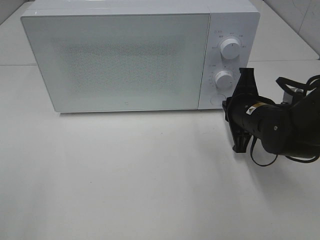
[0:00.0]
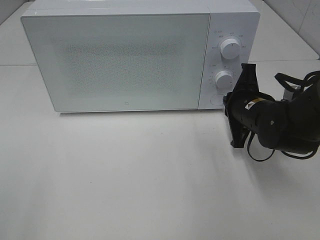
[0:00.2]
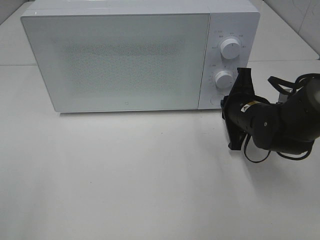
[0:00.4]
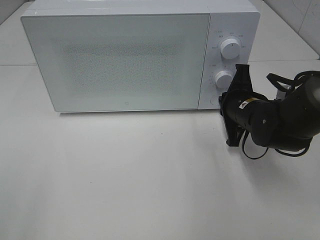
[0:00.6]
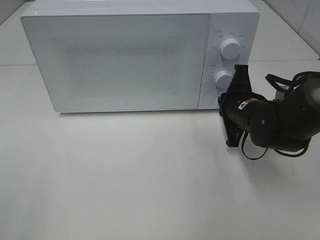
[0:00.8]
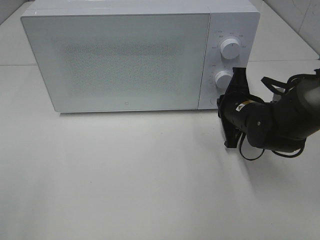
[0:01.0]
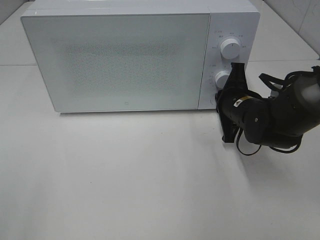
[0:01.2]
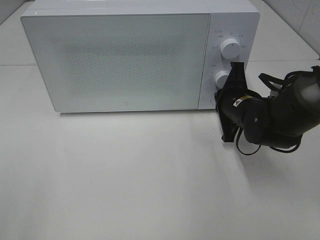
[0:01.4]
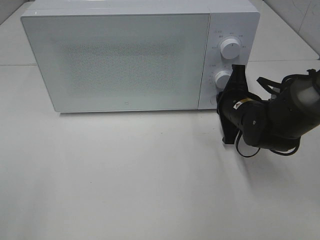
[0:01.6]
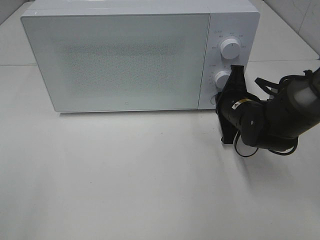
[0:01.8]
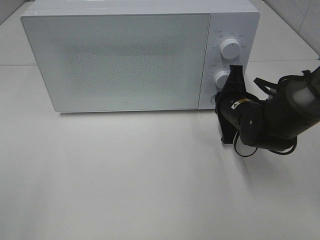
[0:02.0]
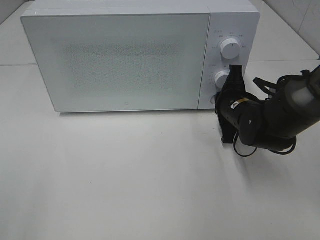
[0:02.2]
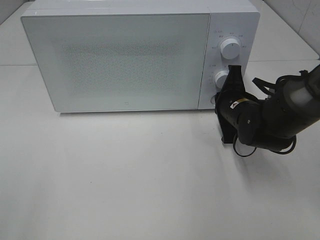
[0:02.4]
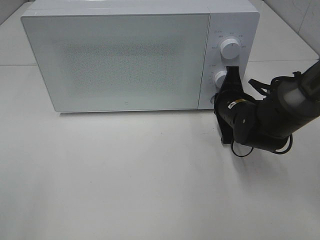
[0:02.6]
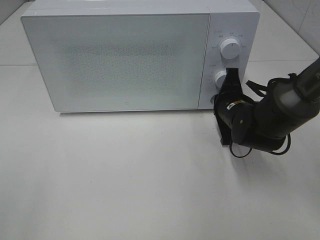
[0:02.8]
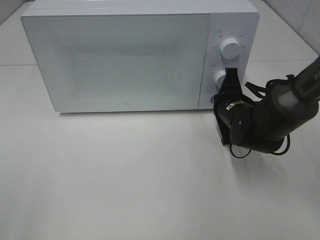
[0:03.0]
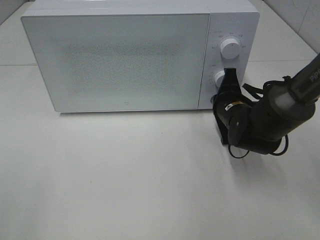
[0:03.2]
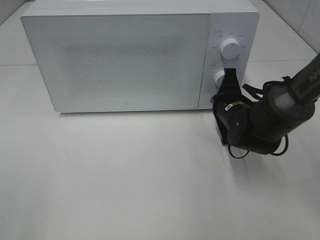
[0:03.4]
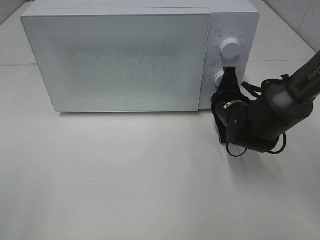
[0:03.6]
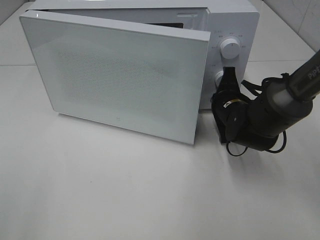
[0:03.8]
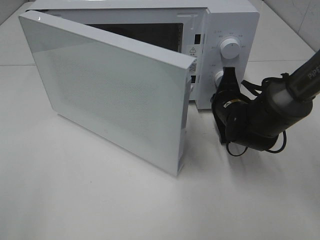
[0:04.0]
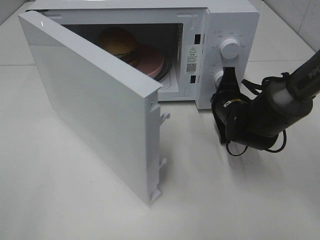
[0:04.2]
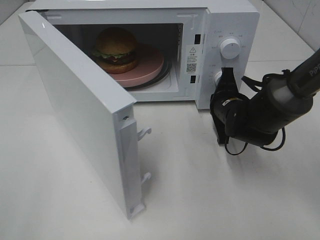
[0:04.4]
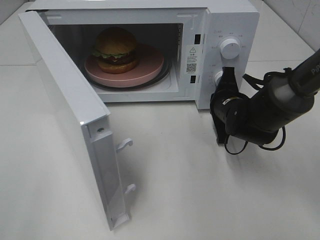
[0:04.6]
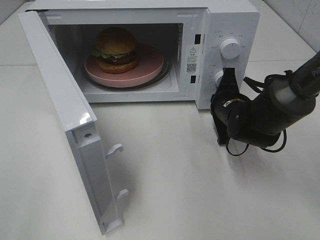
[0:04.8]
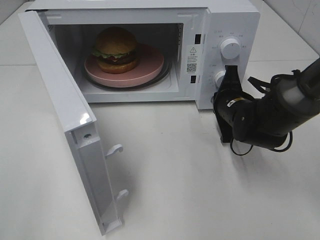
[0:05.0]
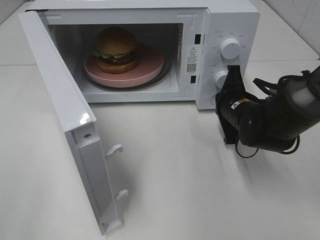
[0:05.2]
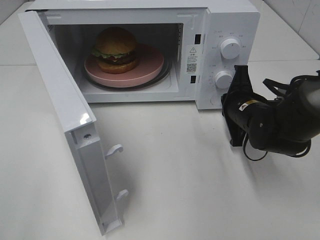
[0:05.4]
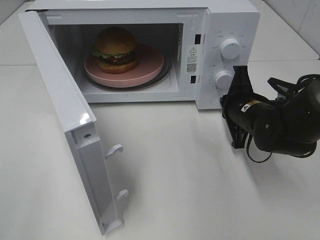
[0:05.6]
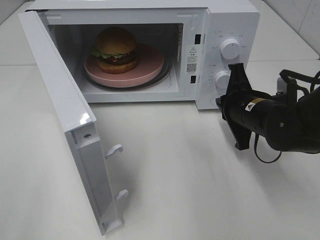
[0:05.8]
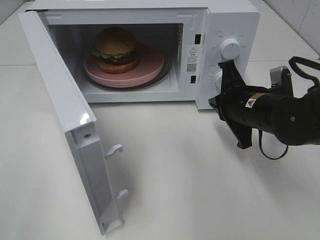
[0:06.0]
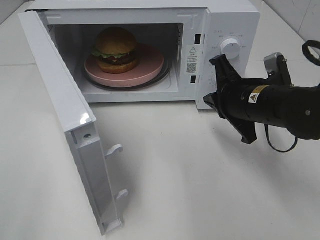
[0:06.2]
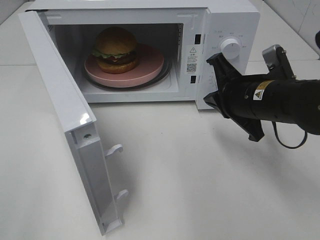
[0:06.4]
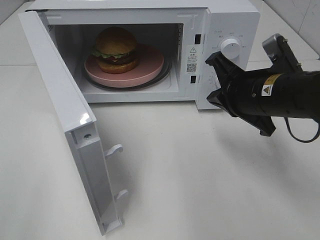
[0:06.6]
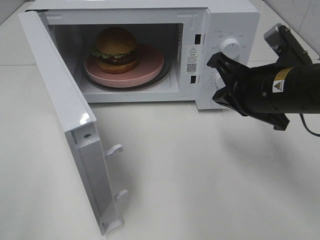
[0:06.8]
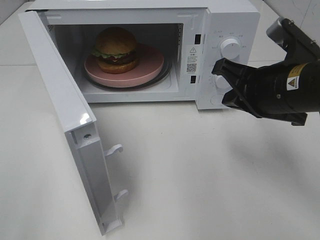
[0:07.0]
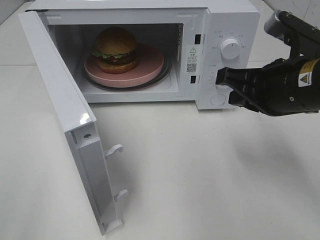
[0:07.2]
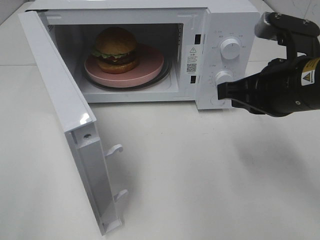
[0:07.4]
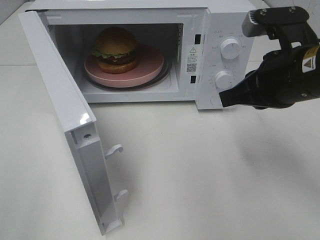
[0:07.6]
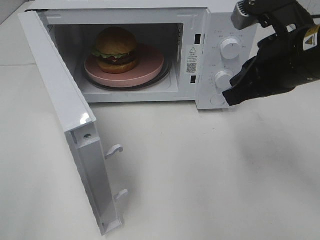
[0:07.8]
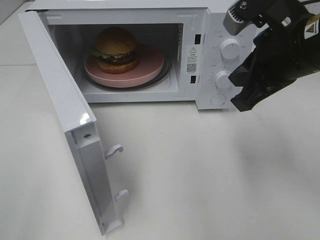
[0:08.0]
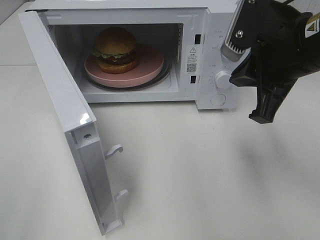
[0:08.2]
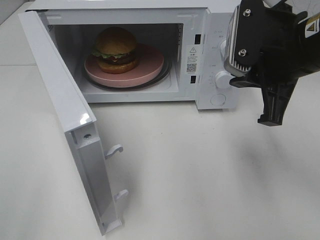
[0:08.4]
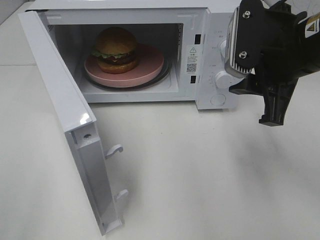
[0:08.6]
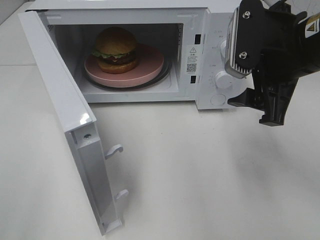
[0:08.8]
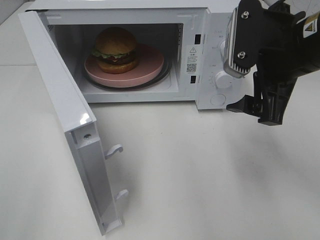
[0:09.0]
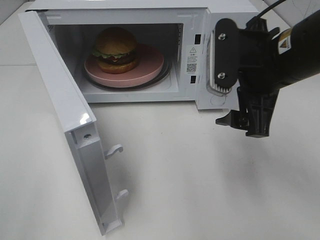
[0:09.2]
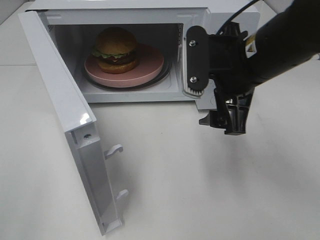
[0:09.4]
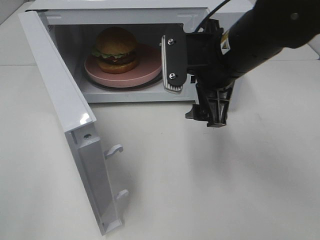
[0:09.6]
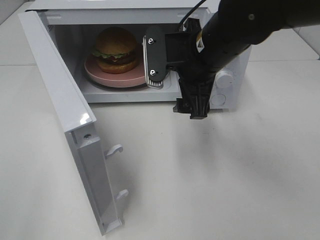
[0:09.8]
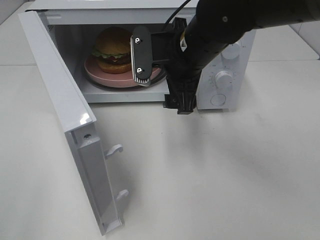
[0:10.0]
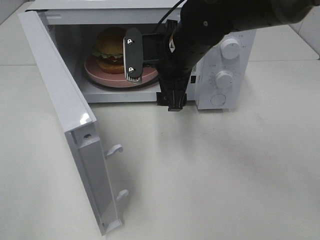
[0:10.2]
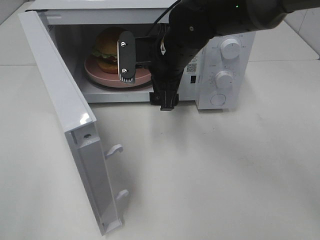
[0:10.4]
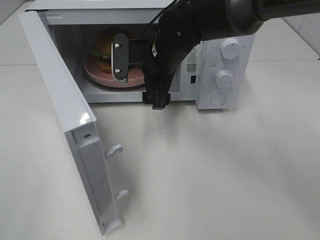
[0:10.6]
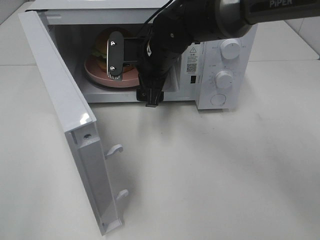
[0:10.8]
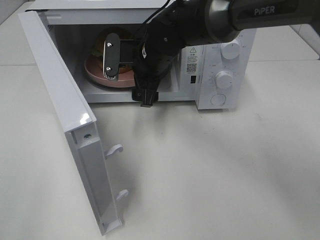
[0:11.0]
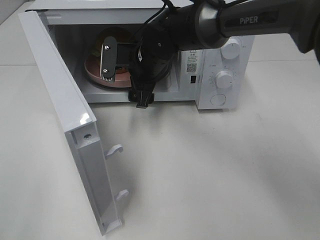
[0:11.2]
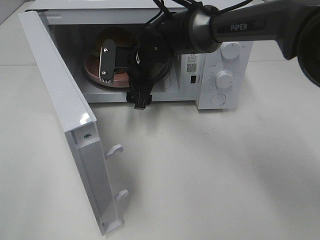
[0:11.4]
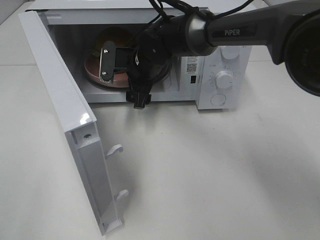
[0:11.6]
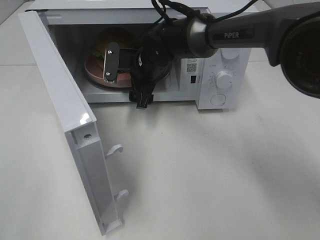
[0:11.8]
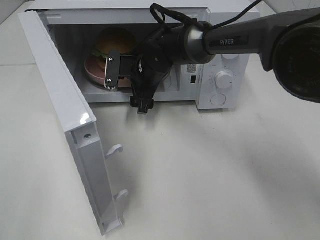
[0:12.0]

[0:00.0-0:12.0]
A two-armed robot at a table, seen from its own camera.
Task of the whole recording: Heat the burger.
Step, 0:00.0 to 0:05.4: Right hand: press the switch.
0:00.0 to 0:03.0: The grippers move only a little.
0:04.4 to 0:06.0: The right gripper heads backward and upward, covering approximately 10 cm.
0:06.0 to 0:07.6: The right gripper heads upward and backward, covering approximately 10 cm.
0:07.6 to 0:09.0: The right gripper opens its fingers.
0:09.0 to 0:10.4: The right gripper moves to the left, forward and downward, some 20 cm.
0:10.4 to 0:12.0: The right gripper travels downward and forward by approximately 10 cm.

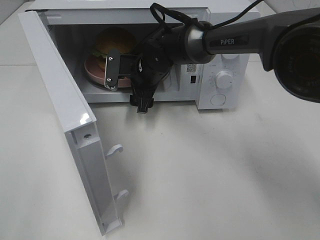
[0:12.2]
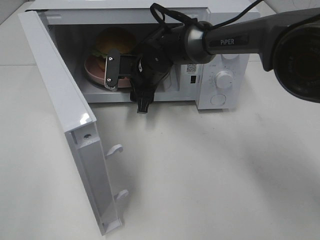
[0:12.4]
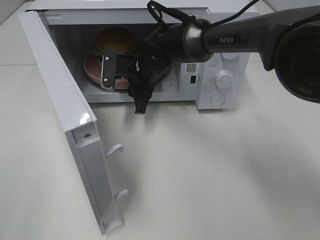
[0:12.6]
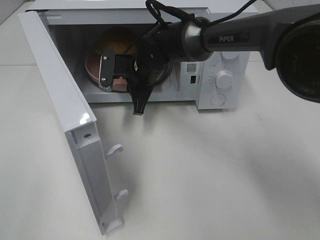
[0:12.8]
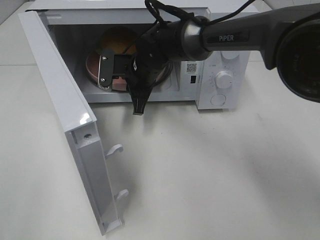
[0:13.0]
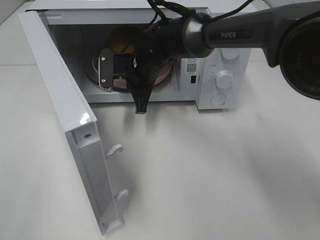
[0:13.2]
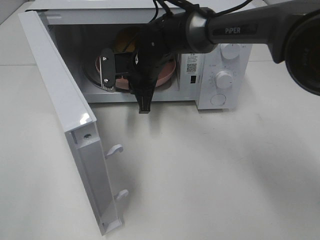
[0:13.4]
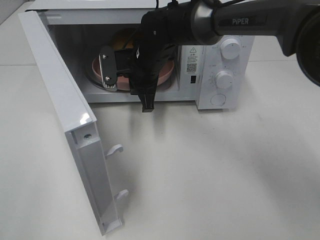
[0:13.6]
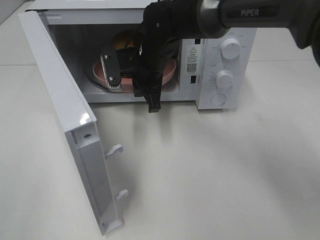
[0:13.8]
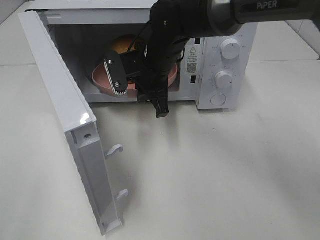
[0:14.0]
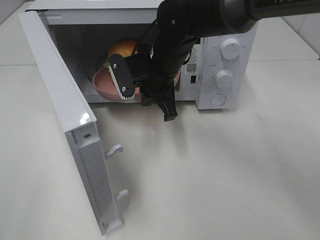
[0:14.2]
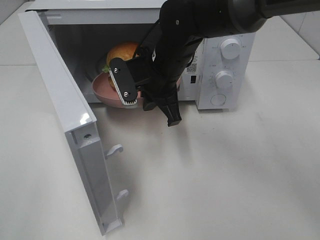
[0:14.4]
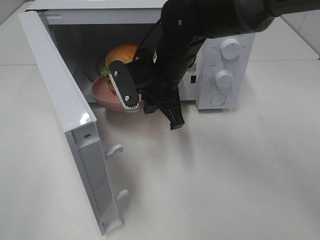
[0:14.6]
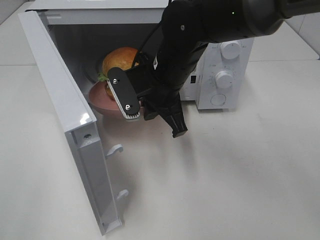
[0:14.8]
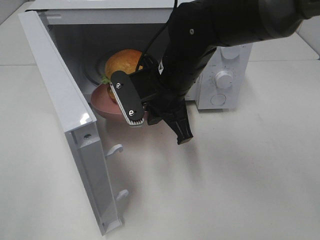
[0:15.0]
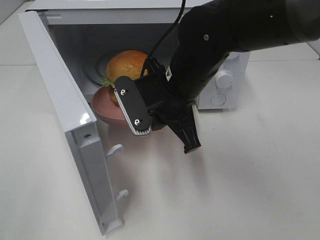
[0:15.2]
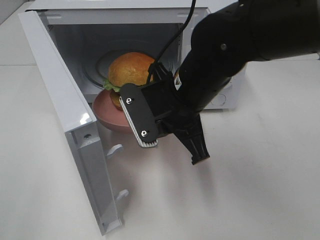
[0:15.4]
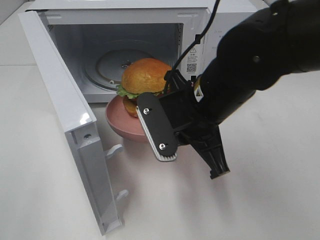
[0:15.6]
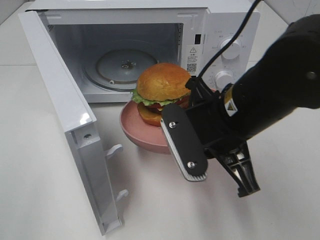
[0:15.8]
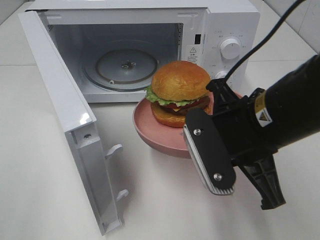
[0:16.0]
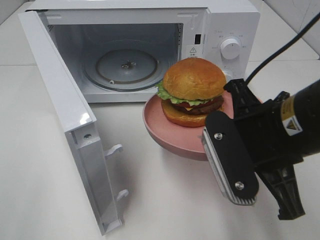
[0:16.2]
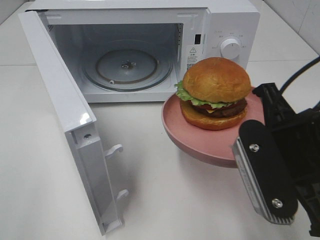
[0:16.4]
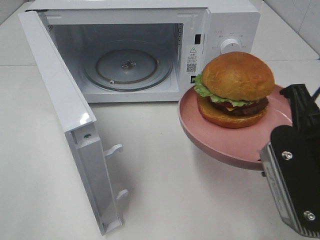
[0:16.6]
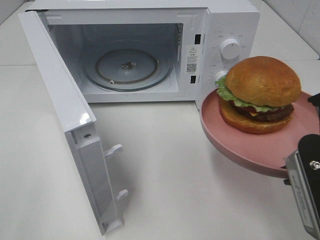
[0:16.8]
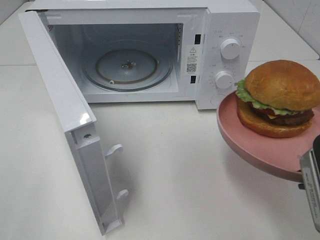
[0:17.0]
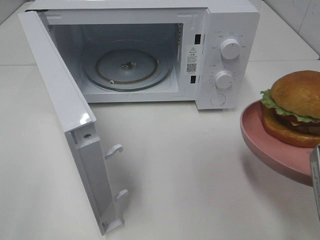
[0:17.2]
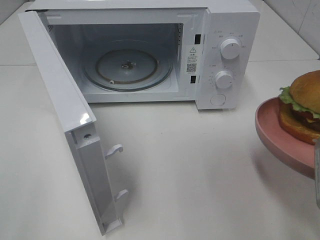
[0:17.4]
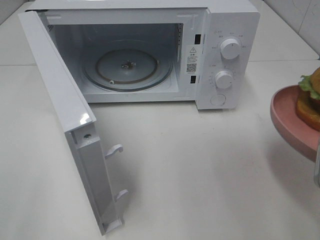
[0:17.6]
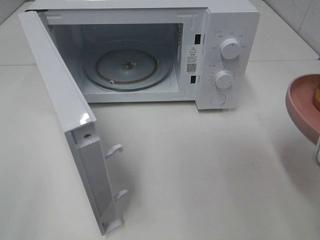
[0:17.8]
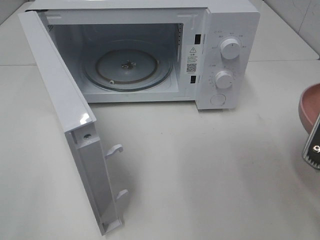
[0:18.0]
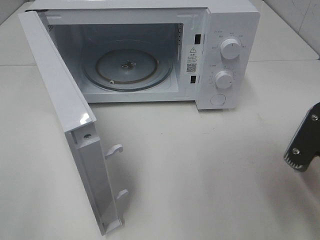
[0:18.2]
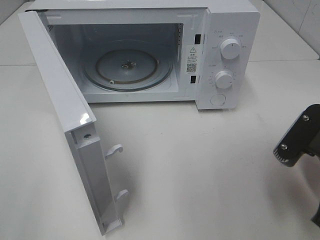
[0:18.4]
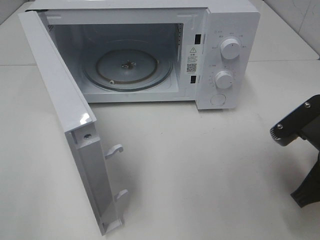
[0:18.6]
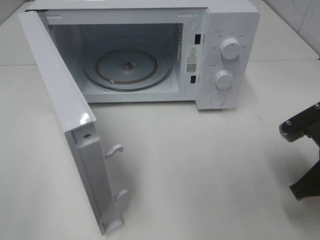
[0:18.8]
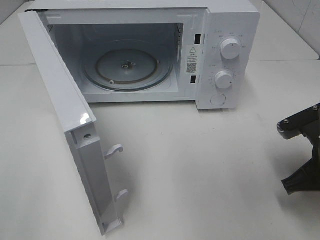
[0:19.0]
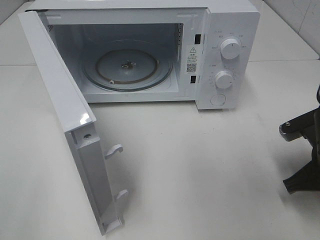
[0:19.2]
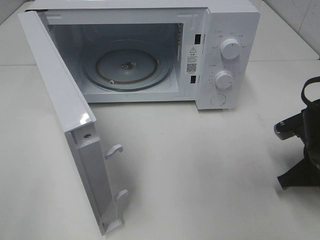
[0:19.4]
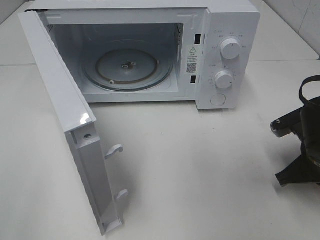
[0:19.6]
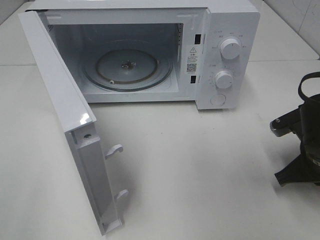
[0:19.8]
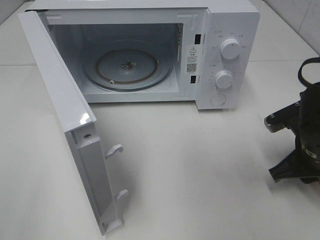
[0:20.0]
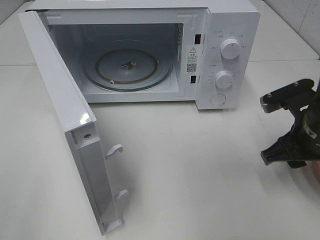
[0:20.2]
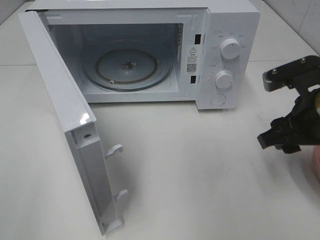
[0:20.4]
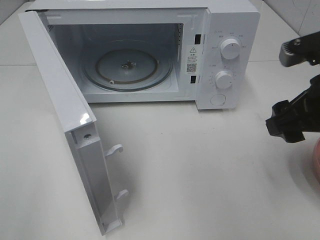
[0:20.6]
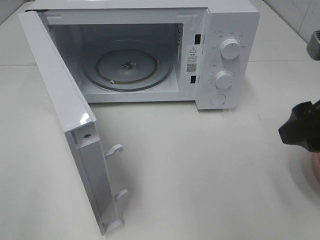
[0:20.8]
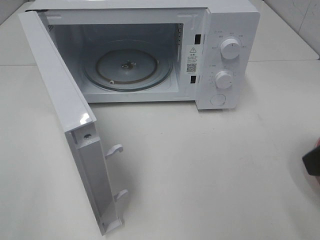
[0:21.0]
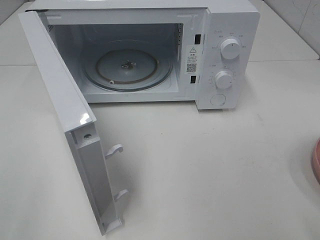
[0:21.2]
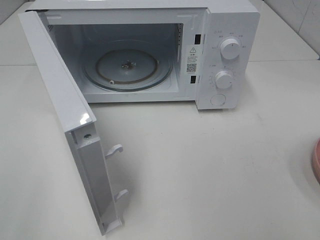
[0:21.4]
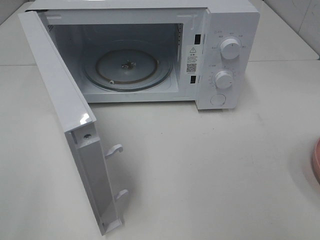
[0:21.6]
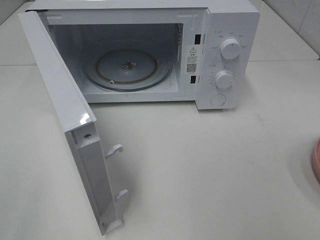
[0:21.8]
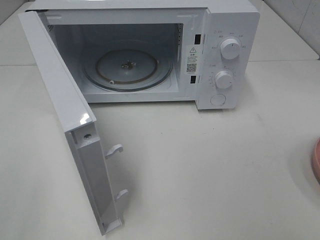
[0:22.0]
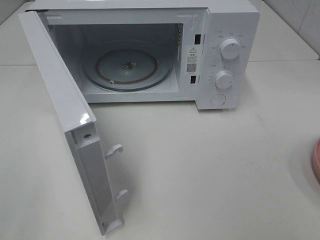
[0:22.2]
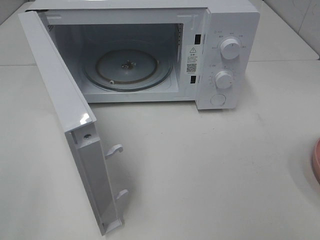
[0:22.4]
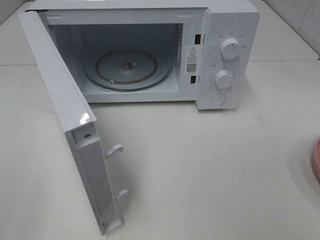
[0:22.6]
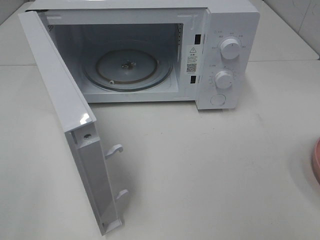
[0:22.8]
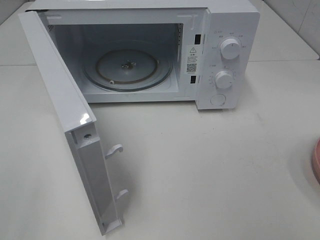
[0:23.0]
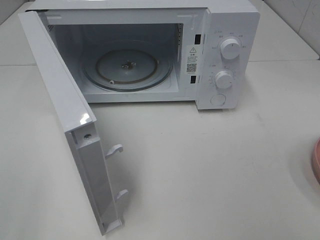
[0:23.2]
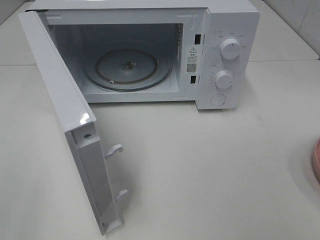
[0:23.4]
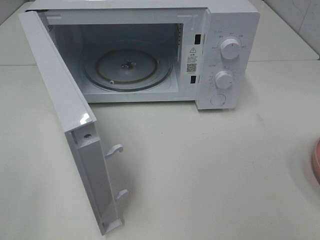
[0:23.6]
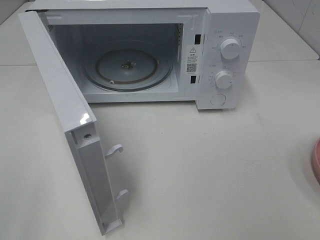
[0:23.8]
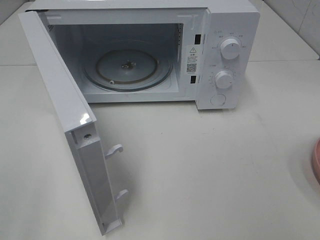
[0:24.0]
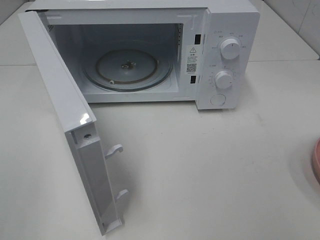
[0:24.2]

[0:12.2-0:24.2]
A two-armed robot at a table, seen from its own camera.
Task of the whole recording: Heat the burger.
Step, 0:13.2 to 0:19.8: Right hand: place the plate on the table.
0:12.2 to 0:13.8: The right gripper ends up some 5 cm from where it was, and closes up.
0:13.8 to 0:15.2: The right gripper travels backward by roughly 10 cm.
0:15.2 to 0:16.6: The right gripper moves to the right and backward, roughly 20 cm.
0:16.6 to 0:18.2: The right gripper shifts by some 5 cm.
0:18.2 to 0:19.8: The right gripper is displaced downward and forward by about 15 cm.
0:19.8 to 0:21.2: The right gripper travels upward and backward by about 25 cm, and opens.
